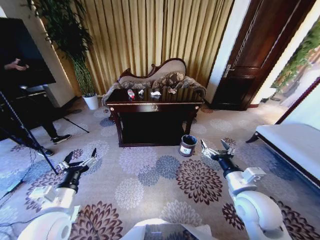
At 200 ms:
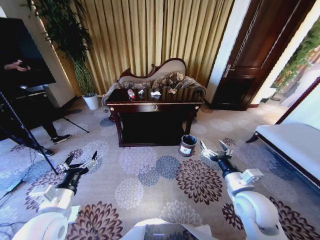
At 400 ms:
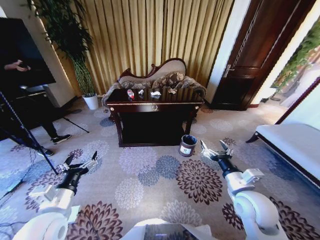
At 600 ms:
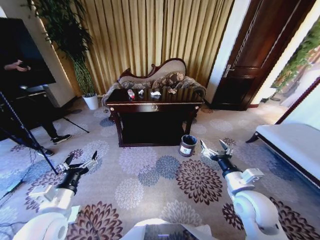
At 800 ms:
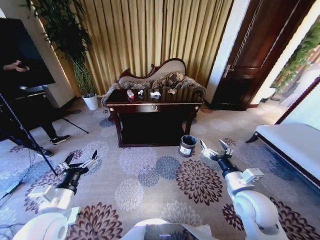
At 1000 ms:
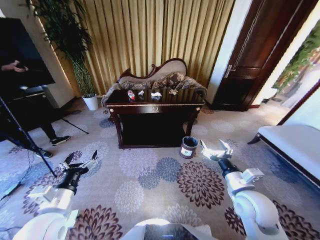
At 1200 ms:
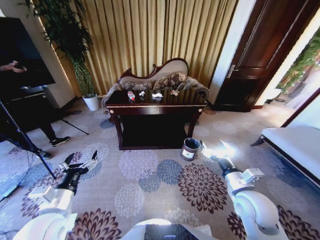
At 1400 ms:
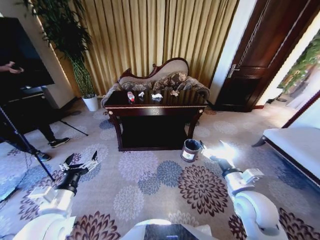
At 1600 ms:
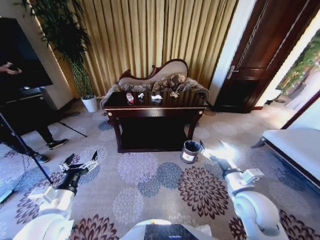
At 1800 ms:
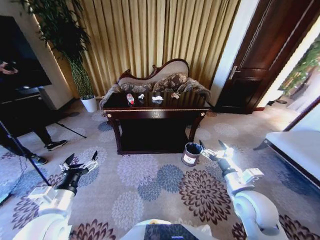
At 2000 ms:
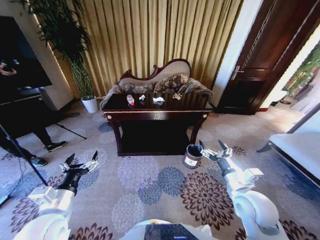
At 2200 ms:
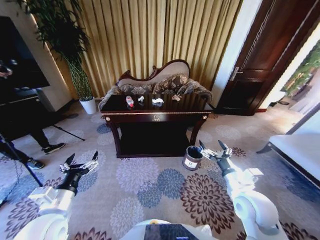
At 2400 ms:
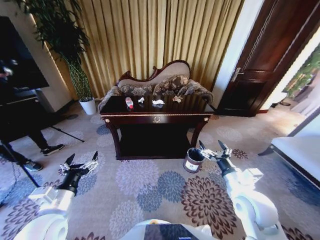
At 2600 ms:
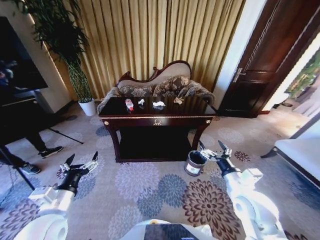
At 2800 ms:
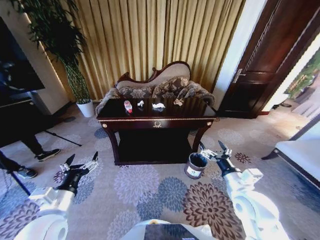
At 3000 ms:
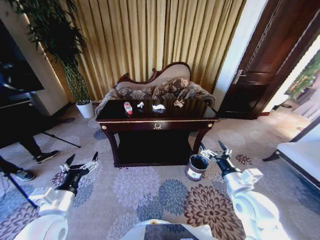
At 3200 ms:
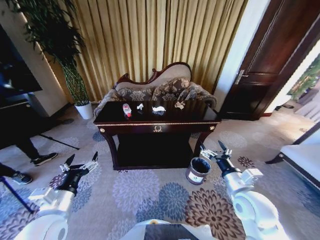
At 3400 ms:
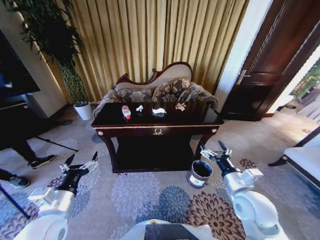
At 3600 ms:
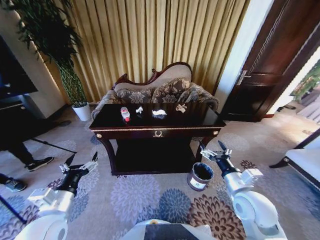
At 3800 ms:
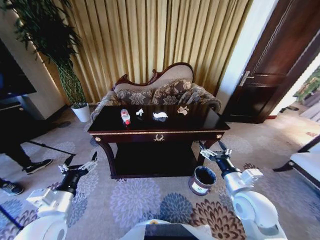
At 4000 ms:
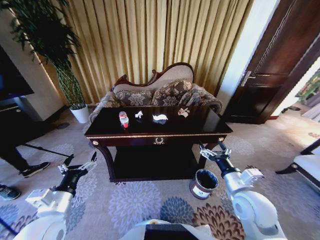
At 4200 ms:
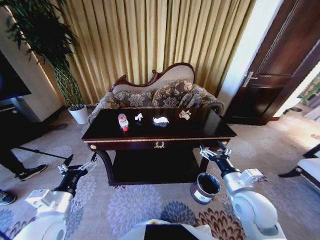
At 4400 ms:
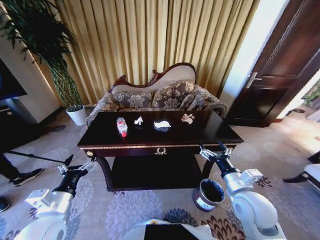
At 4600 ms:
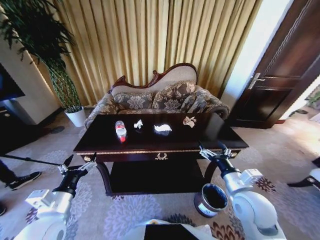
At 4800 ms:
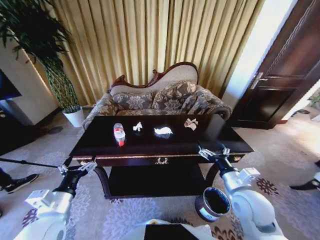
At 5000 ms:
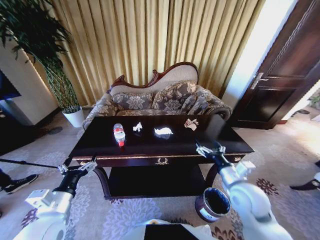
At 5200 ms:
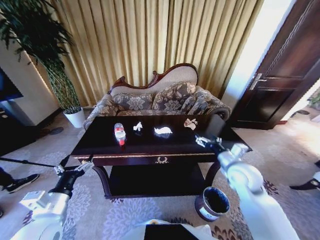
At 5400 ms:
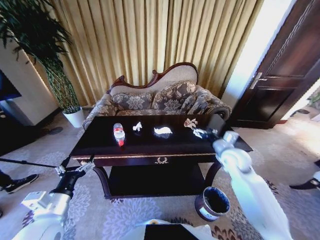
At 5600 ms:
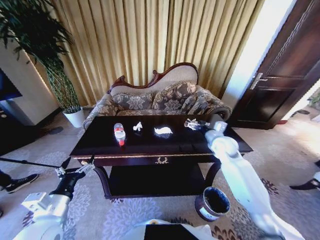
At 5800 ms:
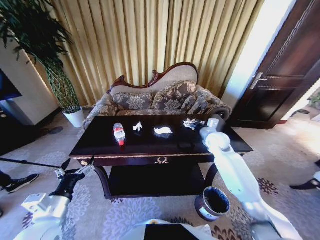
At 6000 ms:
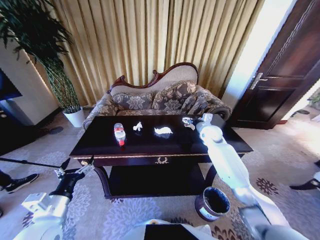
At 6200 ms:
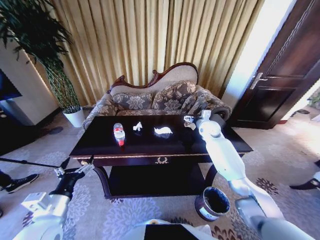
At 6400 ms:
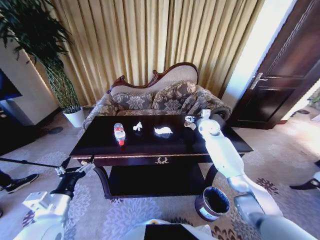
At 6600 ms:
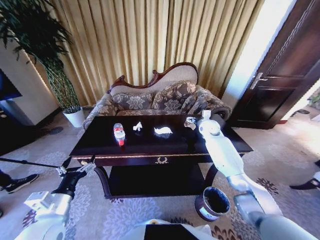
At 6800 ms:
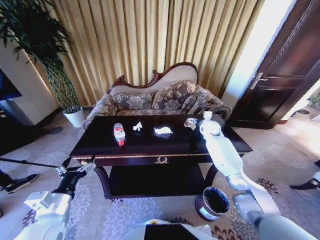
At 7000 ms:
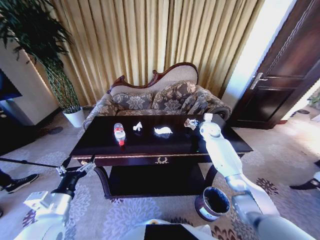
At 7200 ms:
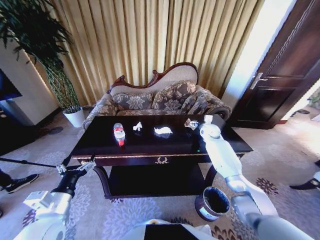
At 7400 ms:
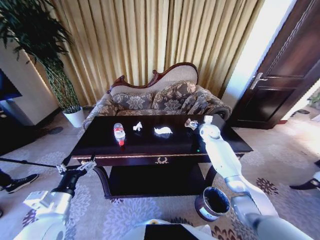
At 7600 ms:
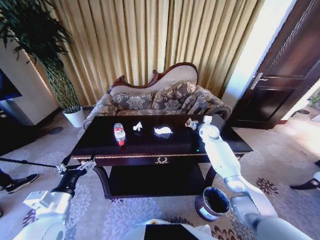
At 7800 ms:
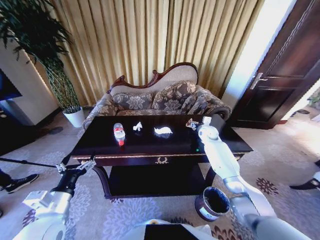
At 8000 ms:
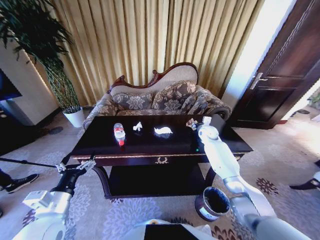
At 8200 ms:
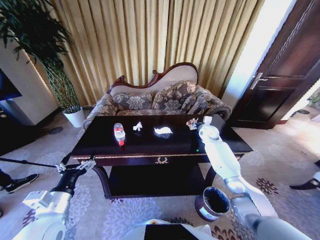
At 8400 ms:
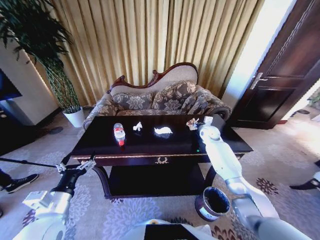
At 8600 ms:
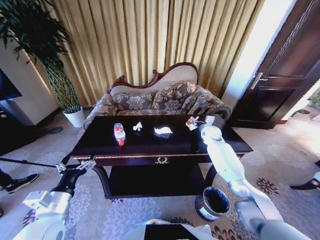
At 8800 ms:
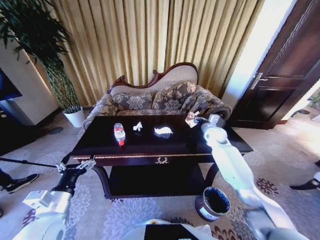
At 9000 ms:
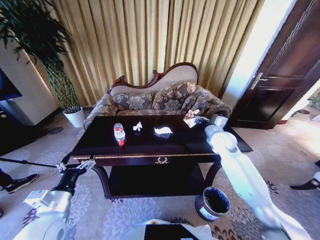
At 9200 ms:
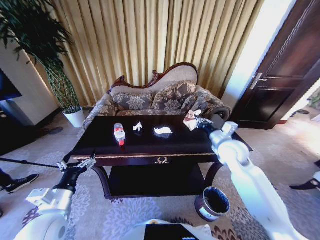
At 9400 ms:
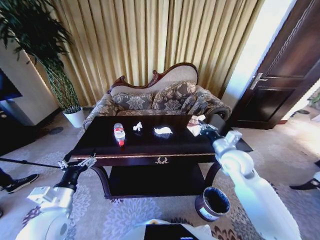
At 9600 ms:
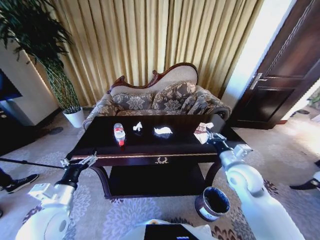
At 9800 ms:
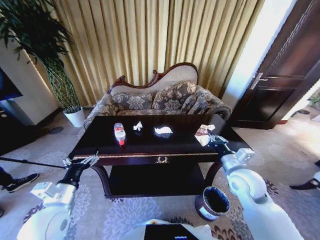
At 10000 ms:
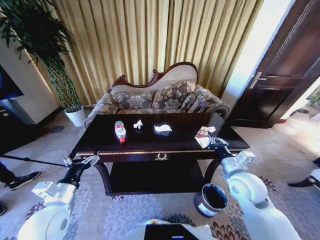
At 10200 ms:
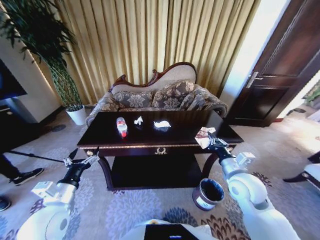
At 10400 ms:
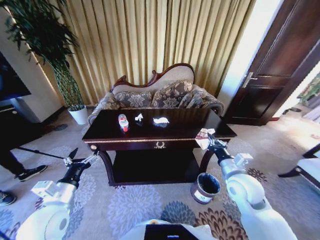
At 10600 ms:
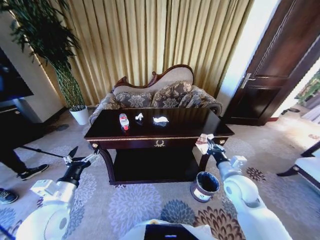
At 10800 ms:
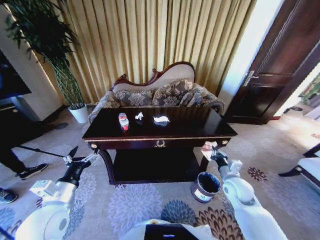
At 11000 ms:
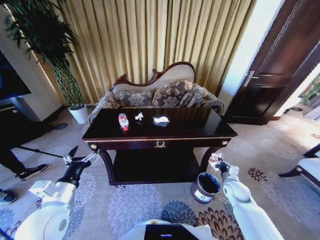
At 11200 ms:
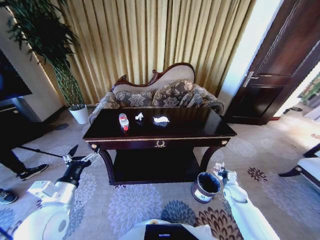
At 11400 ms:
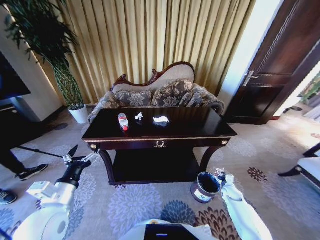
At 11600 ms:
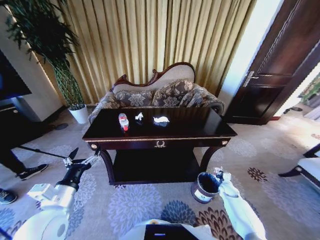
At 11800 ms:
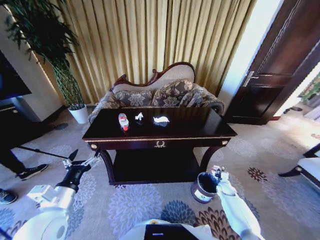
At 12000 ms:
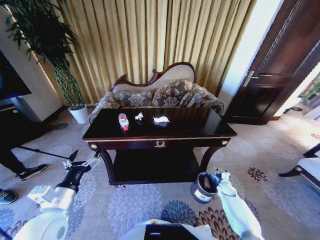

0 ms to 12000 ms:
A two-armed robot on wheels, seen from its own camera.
Task of the whole recording: Move to the front of the table and place the trash on the table into the trash bin.
4400 ms to 6000 ms: The right gripper is displaced forward by roughly 30 cm.
6000 ms to 7600 ms: The right gripper heads forward, covering approximately 5 cm.
7600 ms to 9000 ms: The right gripper goes roughly 15 cm backward and upward, and closes its fingers.
9000 ms to 10400 ms: The right gripper moves backward, approximately 20 cm.
10400 ms to 12000 ms: The right gripper moves downward and to the right, some 35 cm, and opens up.

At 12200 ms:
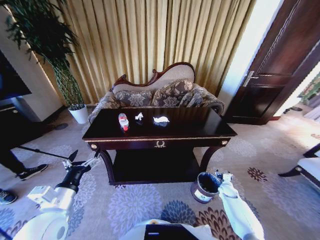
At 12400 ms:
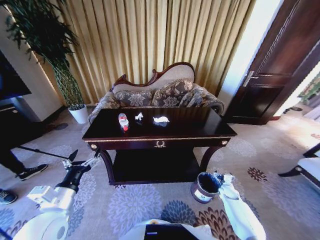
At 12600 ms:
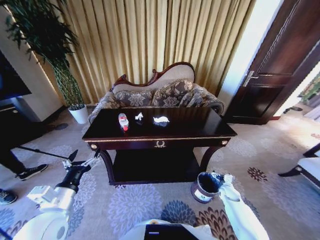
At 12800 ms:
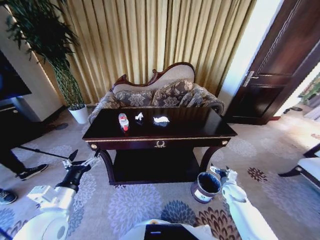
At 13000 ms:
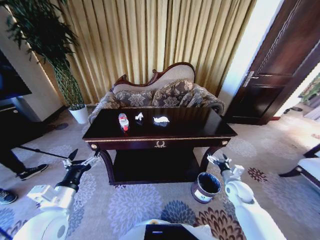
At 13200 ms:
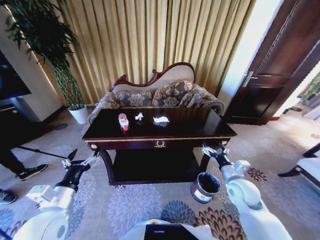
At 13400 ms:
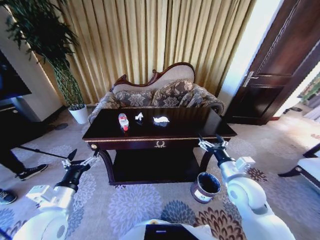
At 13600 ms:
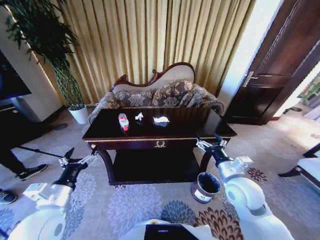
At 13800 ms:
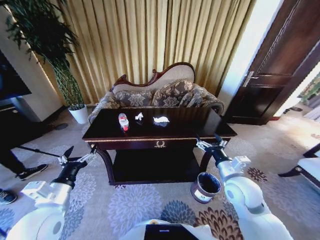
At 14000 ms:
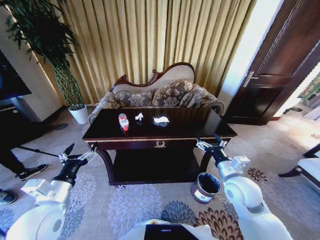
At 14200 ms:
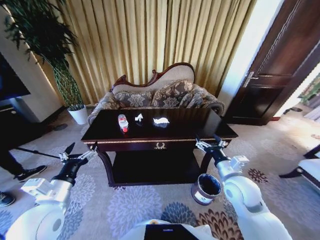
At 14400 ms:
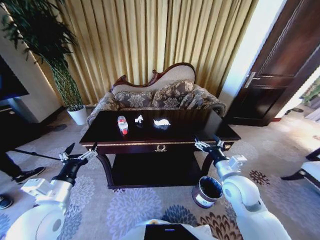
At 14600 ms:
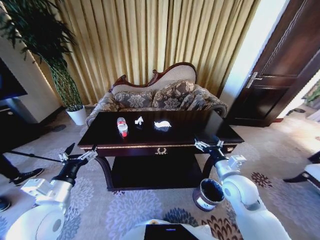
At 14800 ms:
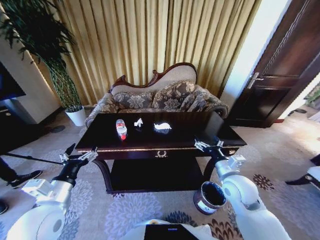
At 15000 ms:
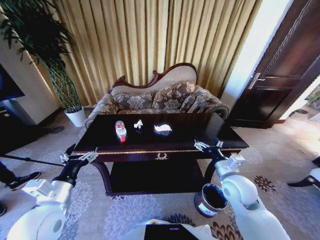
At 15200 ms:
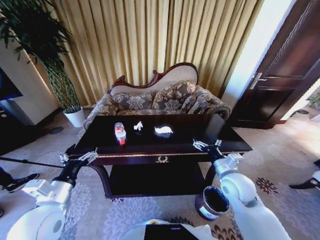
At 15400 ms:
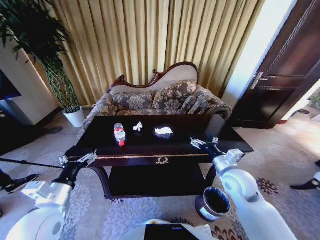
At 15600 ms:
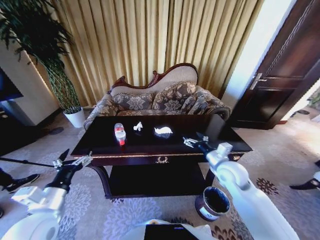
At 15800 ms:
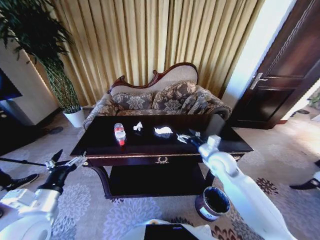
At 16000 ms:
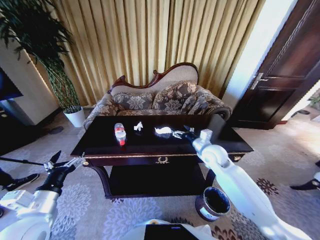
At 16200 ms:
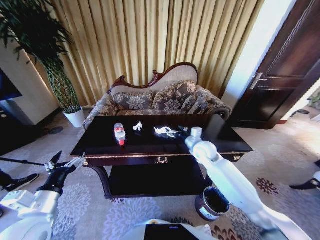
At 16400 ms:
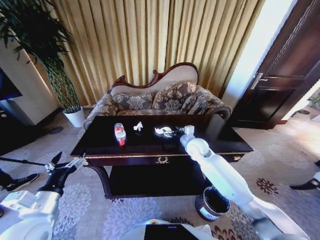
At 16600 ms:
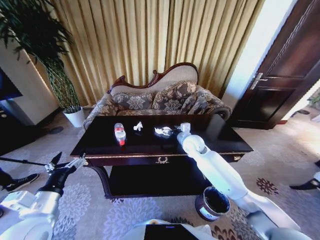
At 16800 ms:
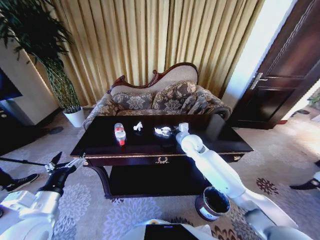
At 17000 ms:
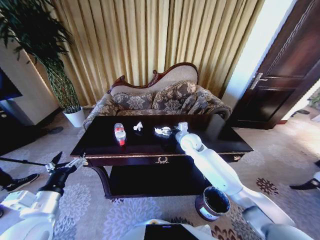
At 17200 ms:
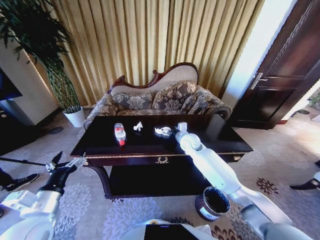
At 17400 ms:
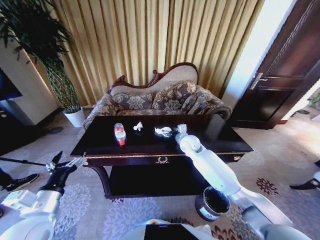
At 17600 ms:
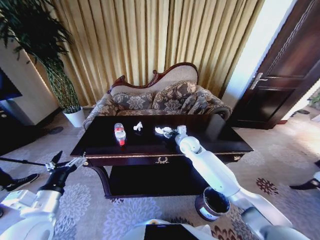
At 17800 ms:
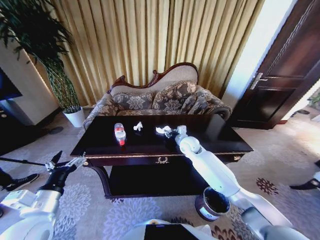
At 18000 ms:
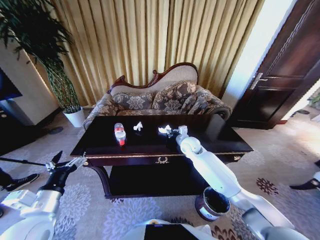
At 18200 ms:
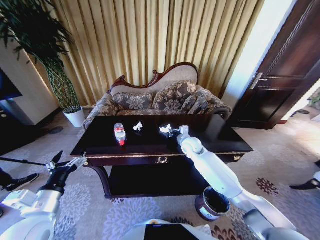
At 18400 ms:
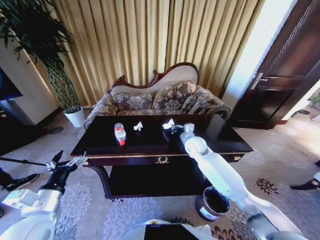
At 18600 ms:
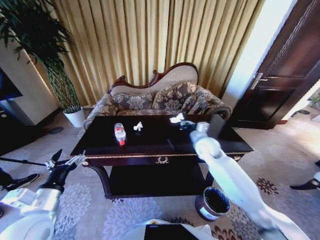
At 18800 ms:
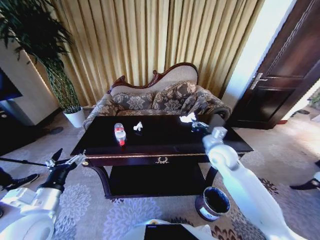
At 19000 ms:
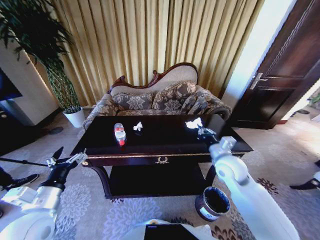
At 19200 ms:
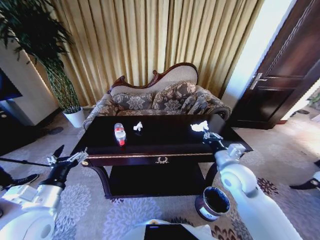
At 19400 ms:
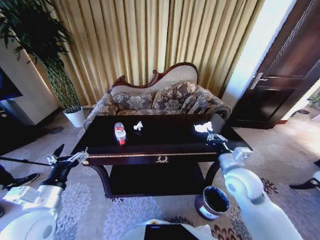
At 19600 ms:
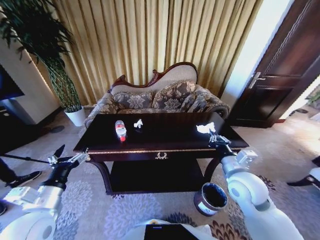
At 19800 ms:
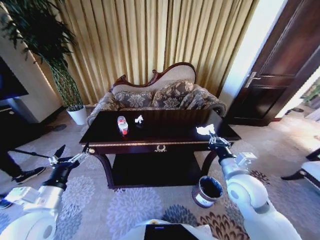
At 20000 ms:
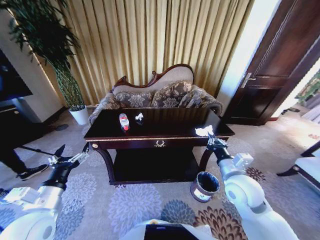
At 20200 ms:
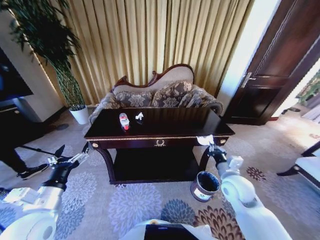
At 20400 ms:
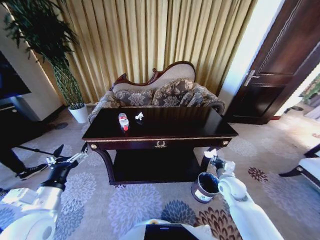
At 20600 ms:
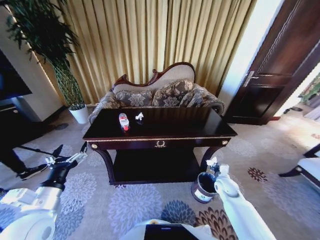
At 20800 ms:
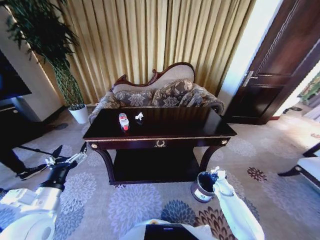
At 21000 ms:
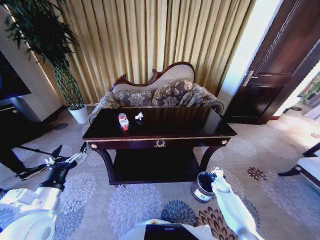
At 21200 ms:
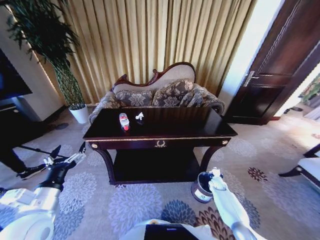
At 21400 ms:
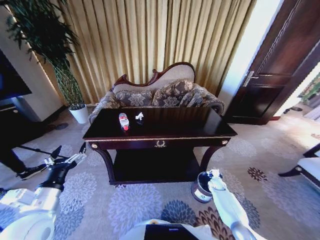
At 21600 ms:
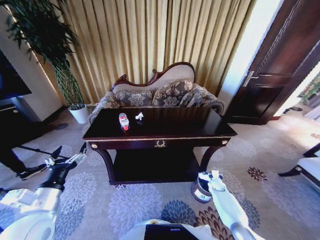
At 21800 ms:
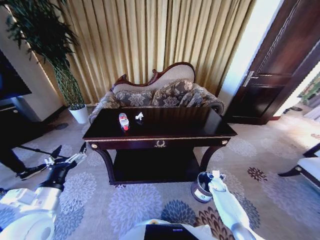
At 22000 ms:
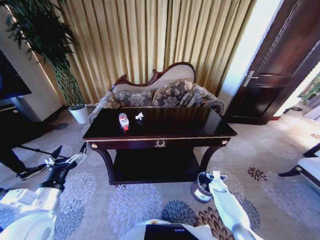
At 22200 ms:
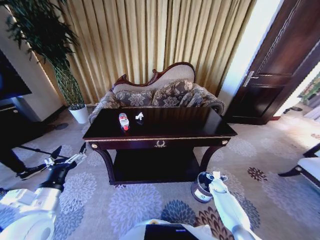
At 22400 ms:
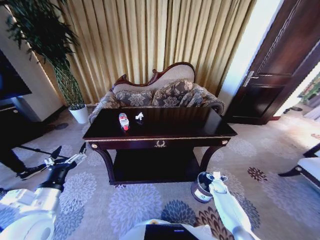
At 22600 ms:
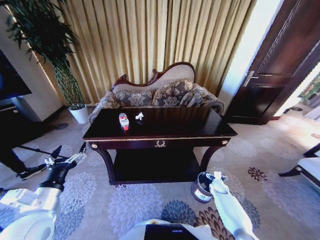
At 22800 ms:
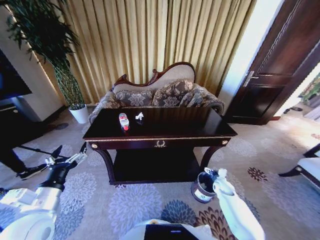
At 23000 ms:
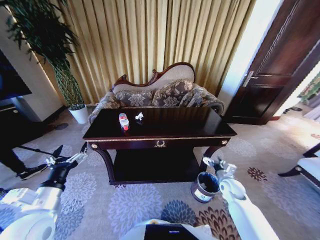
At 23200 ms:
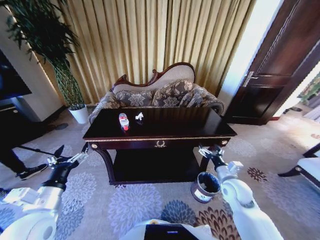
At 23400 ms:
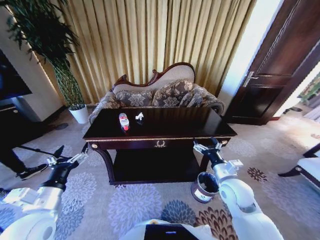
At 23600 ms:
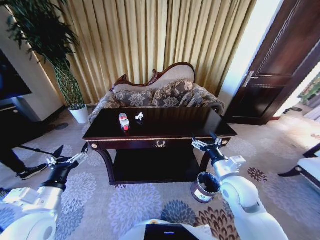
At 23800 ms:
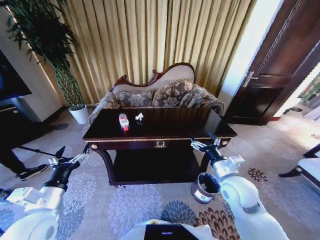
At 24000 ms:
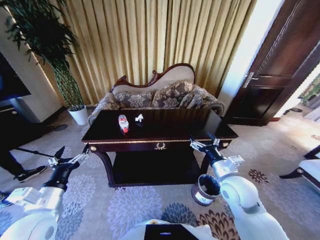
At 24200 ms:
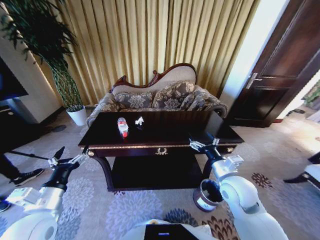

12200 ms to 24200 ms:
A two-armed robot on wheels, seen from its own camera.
Task of the whole recording: Move to the front of the table and place the trash on the table into the trash bin.
12200 ms to 13800 ms: The right gripper heads upward and to the left, covering roughly 35 cm, and opens its fingers.
15200 ms to 16600 ms: The right gripper goes roughly 20 cm forward and to the left.
16600 ms to 18200 ms: The right gripper closes.
18200 ms to 19800 ms: The right gripper goes roughly 25 cm backward and to the right.
19800 ms to 21200 ms: The right gripper is displaced downward by some 35 cm.
21200 ms to 22600 ms: The right gripper opens its fingers.
22600 ms to 24200 ms: The right gripper shifts approximately 35 cm upward and to the left.
